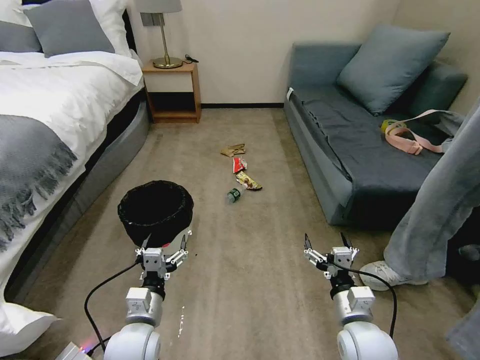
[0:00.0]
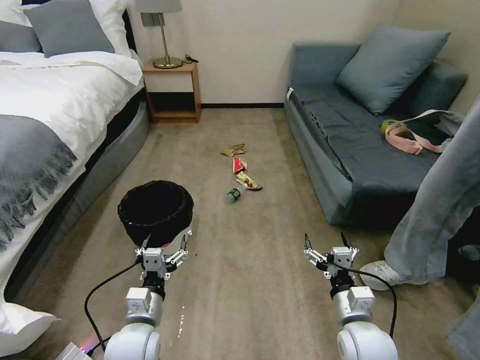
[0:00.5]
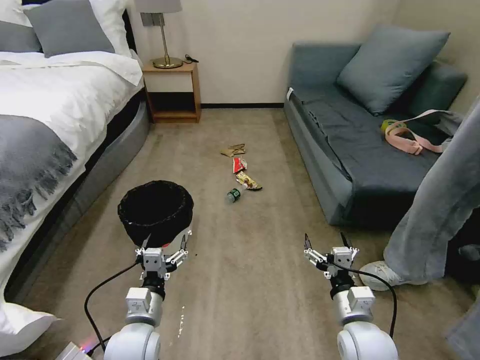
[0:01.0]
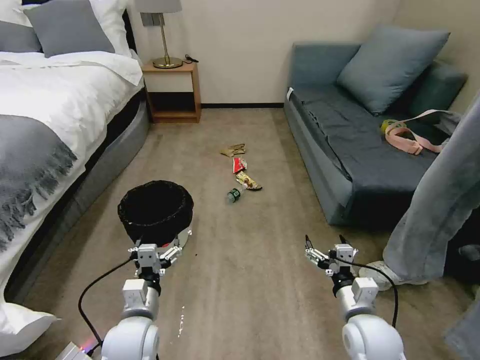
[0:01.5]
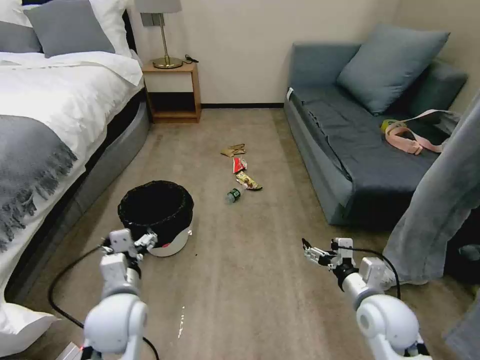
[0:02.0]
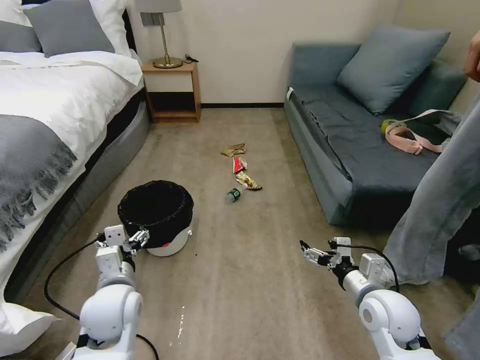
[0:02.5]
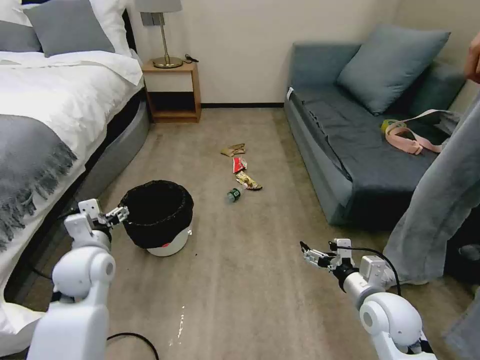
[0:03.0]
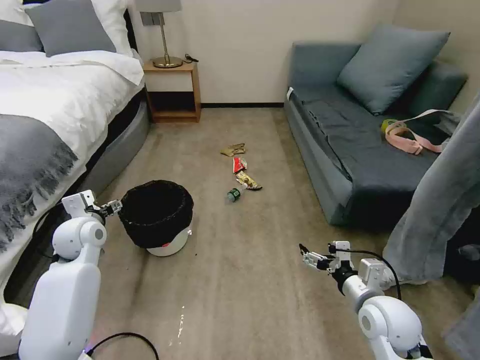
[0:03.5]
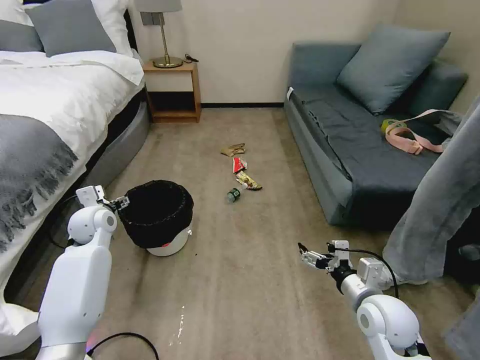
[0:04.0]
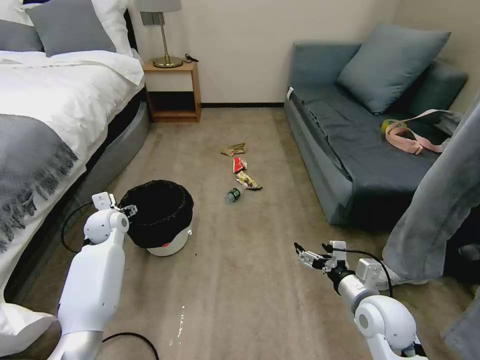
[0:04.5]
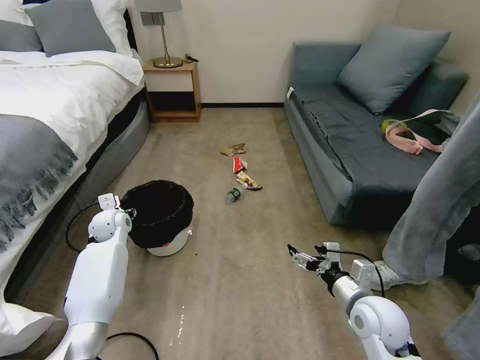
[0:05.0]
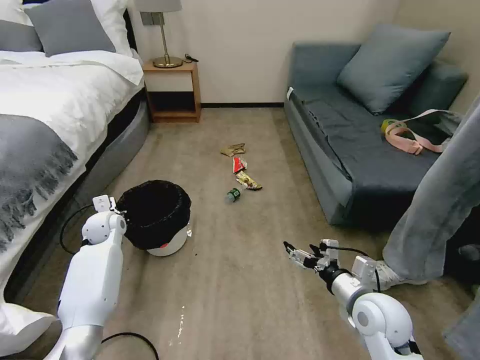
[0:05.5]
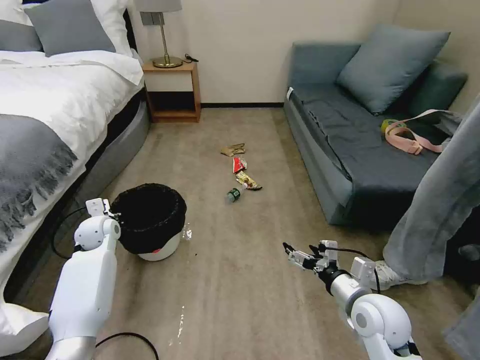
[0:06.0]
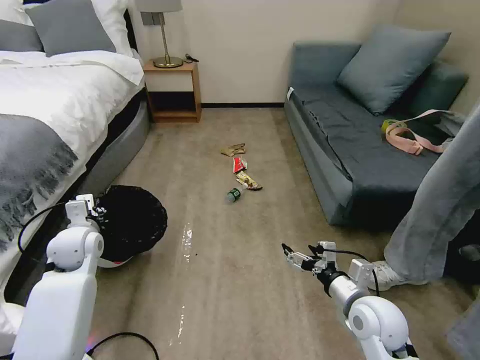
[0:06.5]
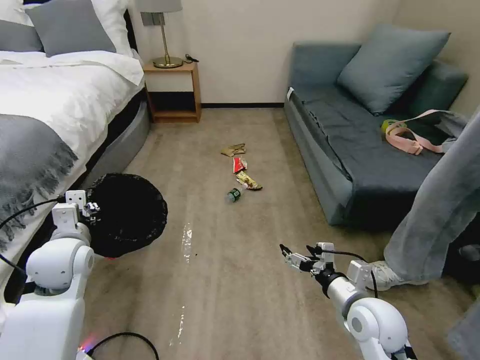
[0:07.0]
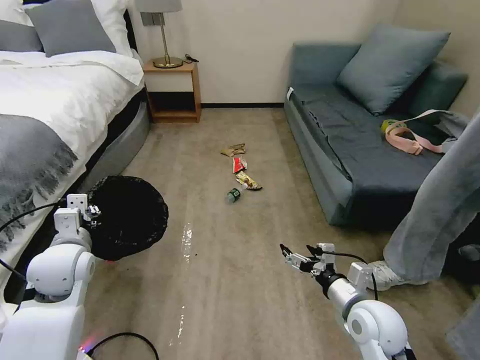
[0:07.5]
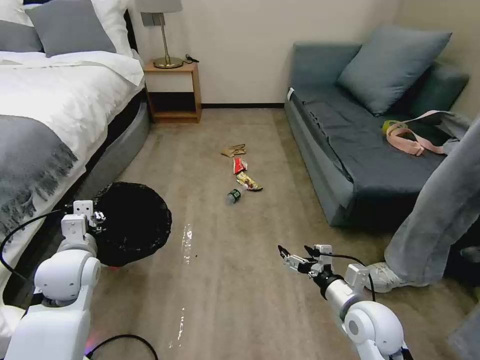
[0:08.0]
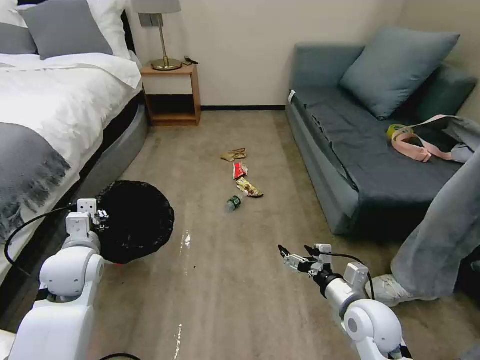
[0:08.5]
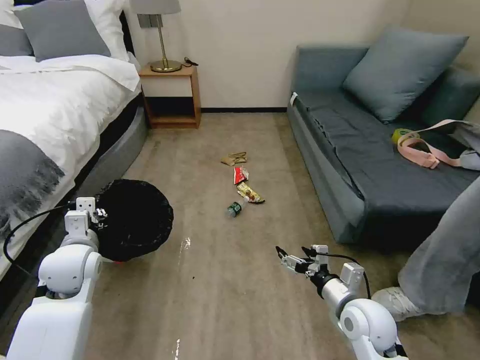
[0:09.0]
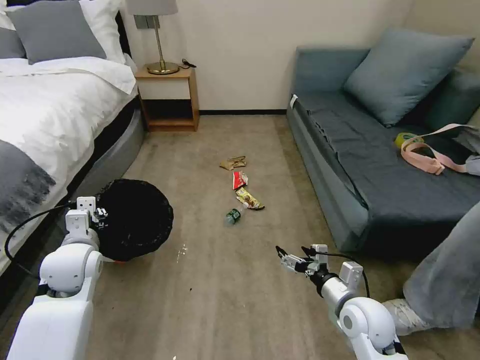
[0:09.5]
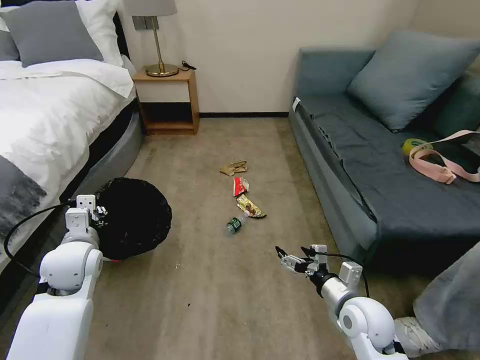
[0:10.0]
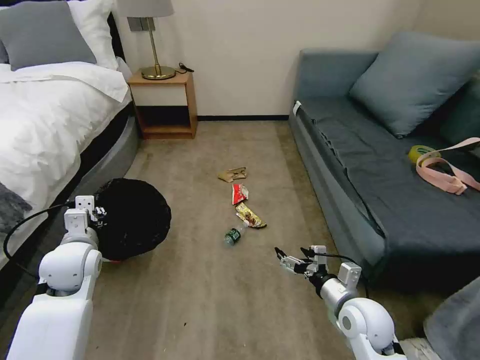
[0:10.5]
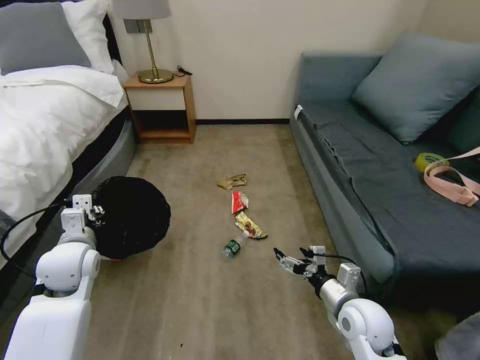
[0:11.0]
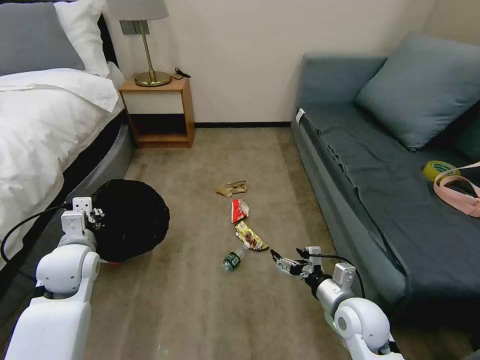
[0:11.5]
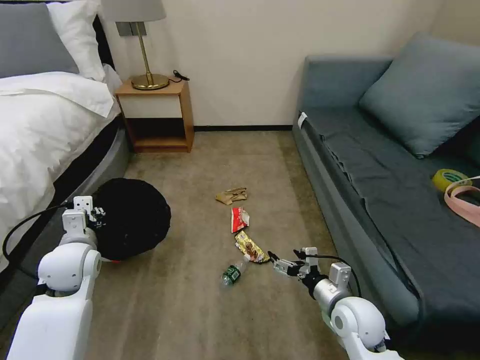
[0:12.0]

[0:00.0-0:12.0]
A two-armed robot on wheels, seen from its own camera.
Task of the whole recording: Pick up the trash bin, then pick up the garbage on the floor and place it into the trash bin.
0:02.0 to 0:04.0: The left gripper is displaced forward and to the left by about 25 cm.
0:04.0 to 0:06.0: The left gripper moves downward, roughly 5 cm, and closes its fingers.
0:06.0 to 0:08.0: The left gripper shifts about 15 cm backward and upward.

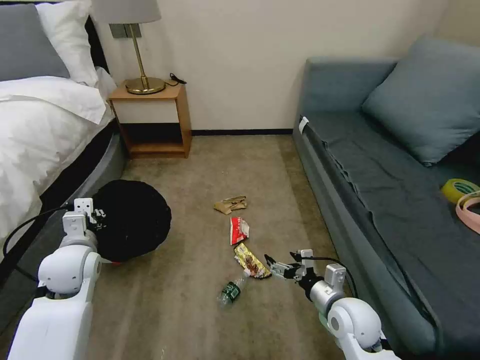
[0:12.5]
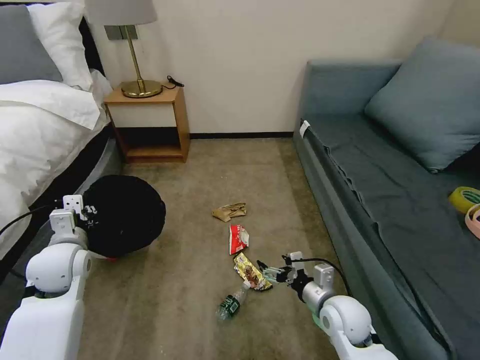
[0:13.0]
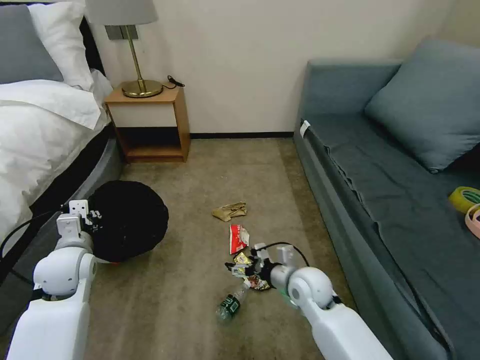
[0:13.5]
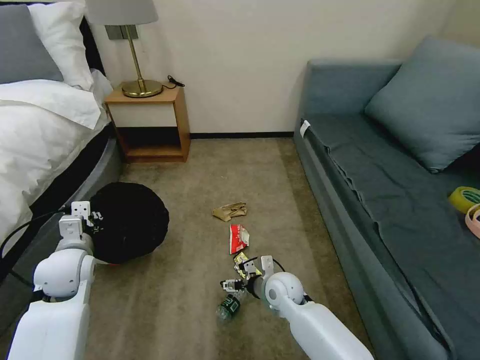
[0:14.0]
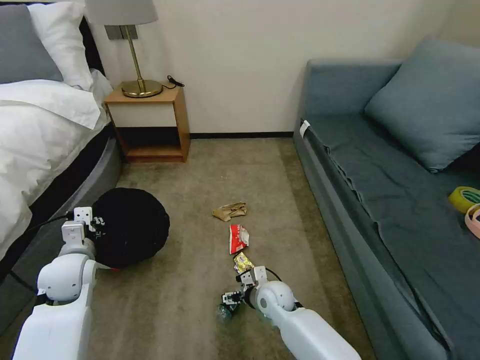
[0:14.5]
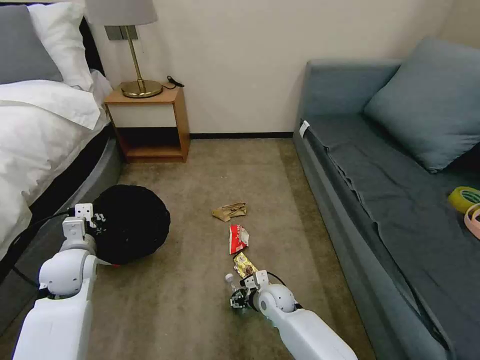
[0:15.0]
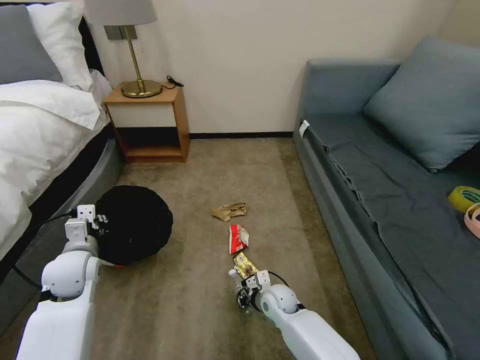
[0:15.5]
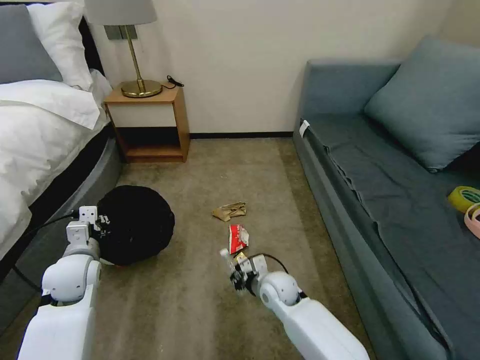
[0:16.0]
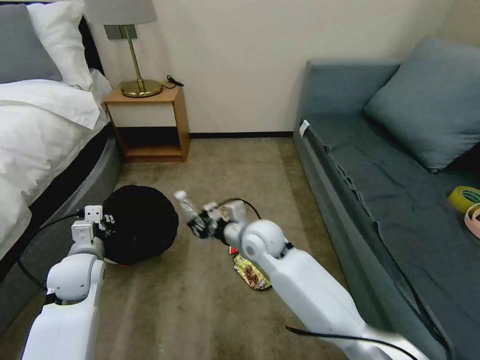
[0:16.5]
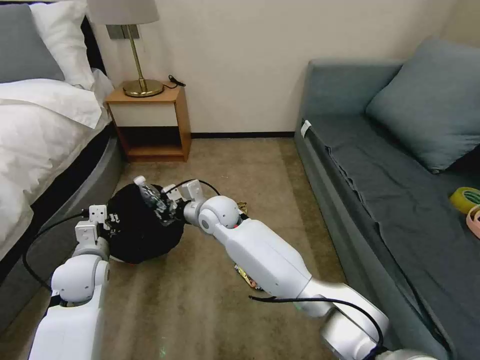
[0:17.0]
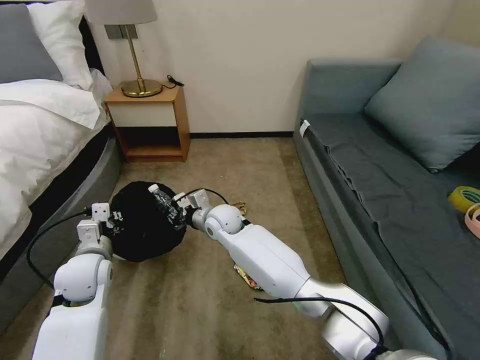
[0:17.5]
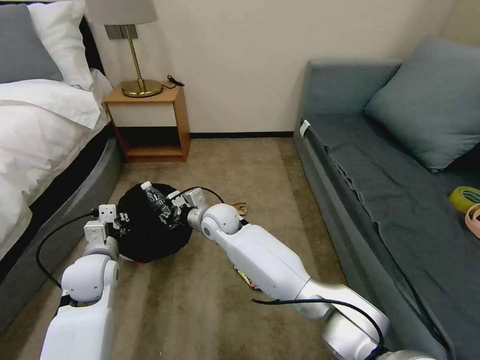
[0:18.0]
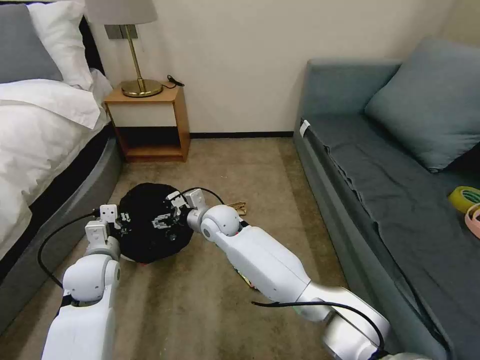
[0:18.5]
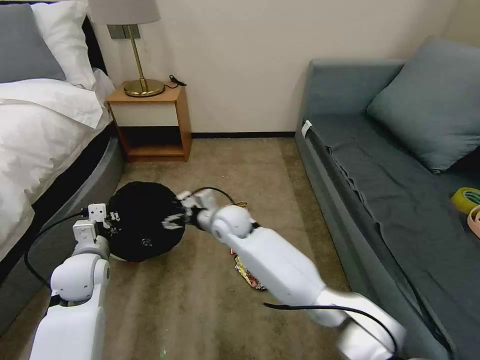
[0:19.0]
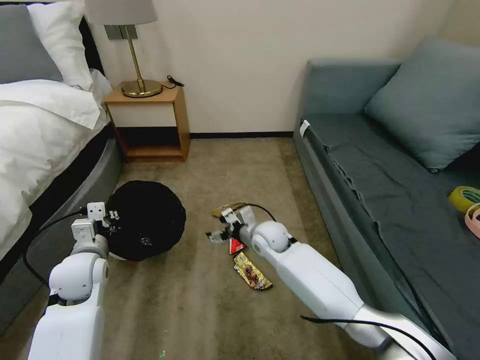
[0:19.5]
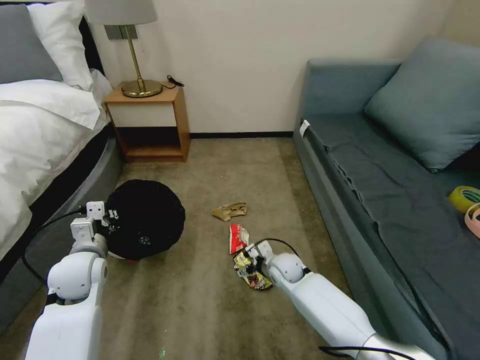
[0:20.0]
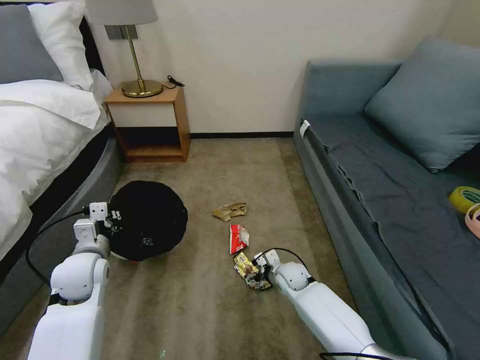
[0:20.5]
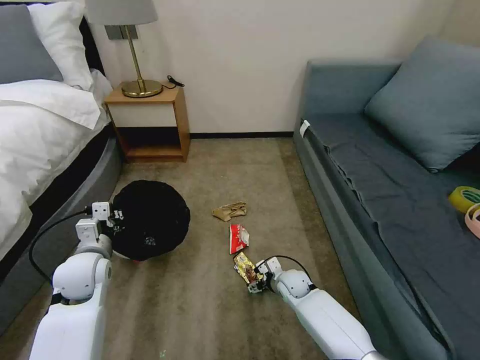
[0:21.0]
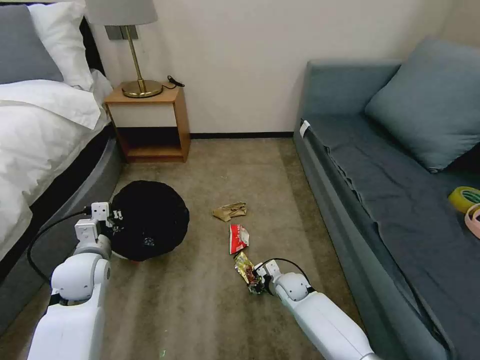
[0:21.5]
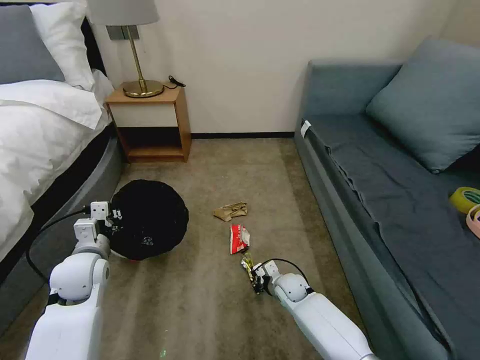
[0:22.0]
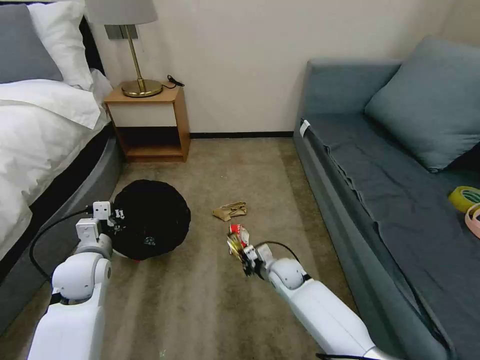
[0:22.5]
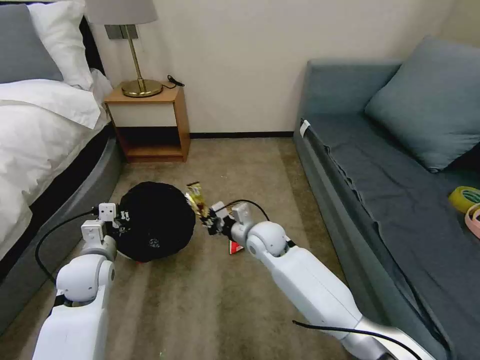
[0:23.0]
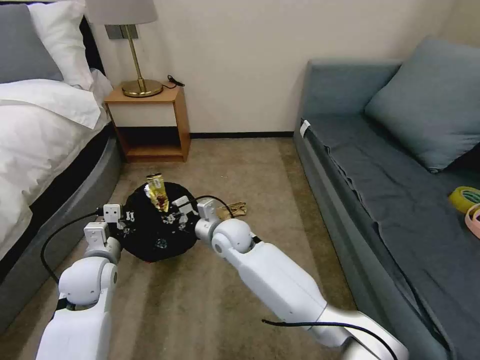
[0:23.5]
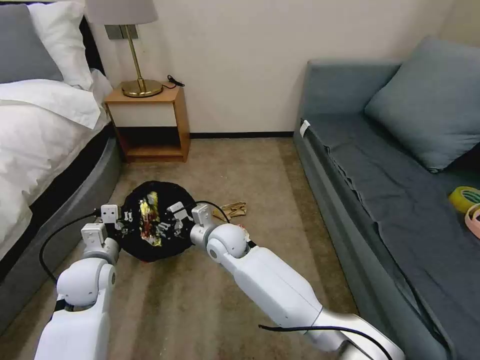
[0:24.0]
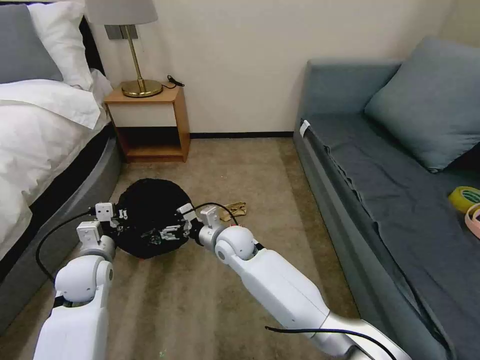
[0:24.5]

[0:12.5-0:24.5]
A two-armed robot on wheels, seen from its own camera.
Task of the whole recording: Pick up the trash bin, then pick up the garbage on the floor and place it into the trash bin.
0:12.5 to 0:14.5: The right gripper is displaced to the left, downward and forward by roughly 20 cm.
0:14.5 to 0:16.5: The right gripper moves upward, about 20 cm, and closes its fingers.
0:16.5 to 0:18.5: The right gripper travels to the left and forward by some 10 cm, and opens up.
0:18.5 to 0:20.5: The right gripper moves to the right and downward, roughly 30 cm.
0:20.5 to 0:22.5: The right gripper closes up.
0:22.5 to 0:24.5: The right gripper travels to the left and upward by about 20 cm, and opens up.

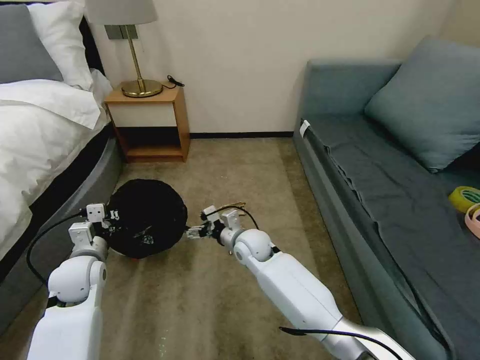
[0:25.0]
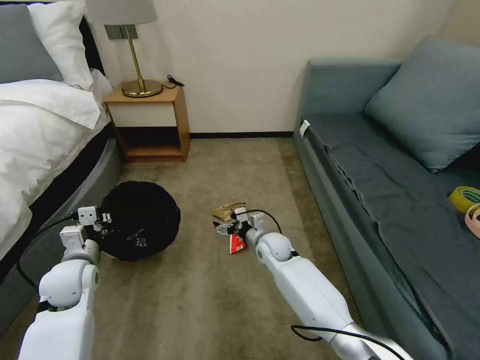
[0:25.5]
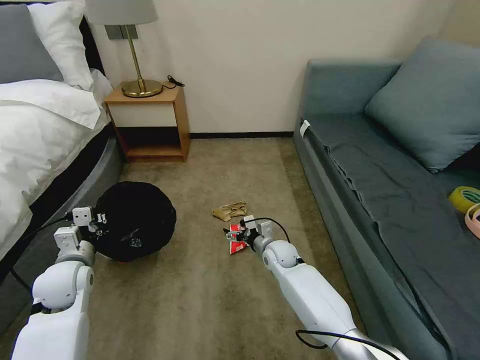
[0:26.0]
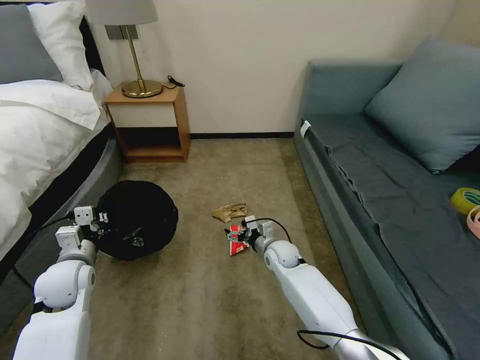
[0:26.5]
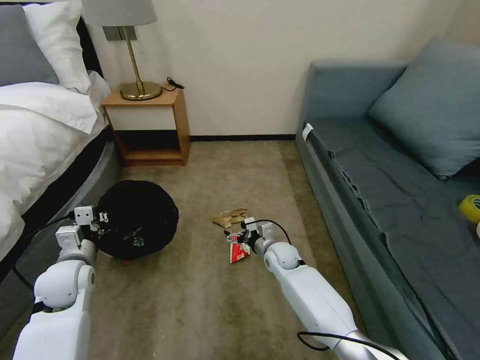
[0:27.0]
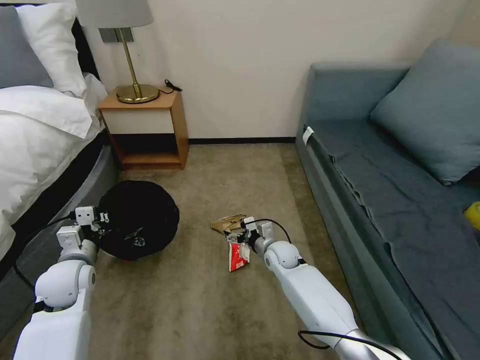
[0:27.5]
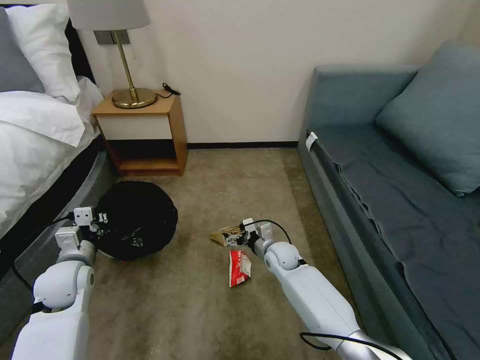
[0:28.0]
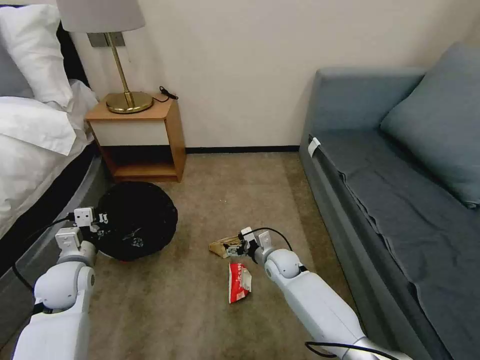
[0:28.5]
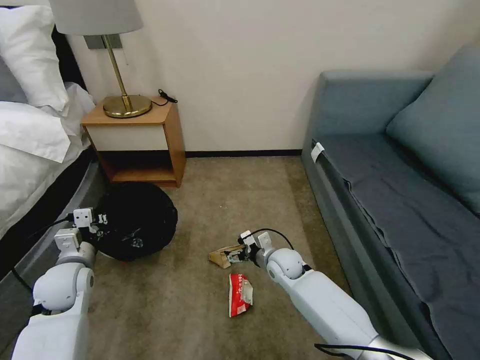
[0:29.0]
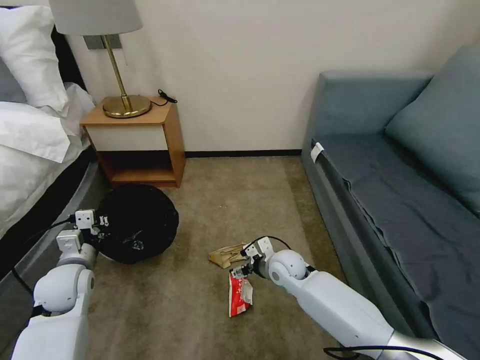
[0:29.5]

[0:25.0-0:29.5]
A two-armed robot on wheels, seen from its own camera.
Task of the whole recording: Pick up the trash bin, then pick up the garbage on the floor and place it into the trash bin.
0:25.0 to 0:27.0: The right gripper is displaced to the right and downward by approximately 10 cm.
0:27.0 to 0:29.5: The right gripper ends up approximately 5 cm from where it was.
